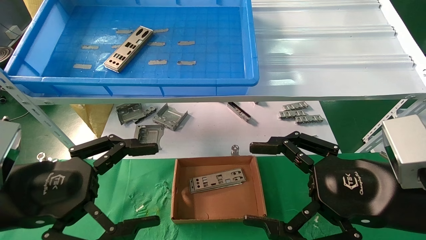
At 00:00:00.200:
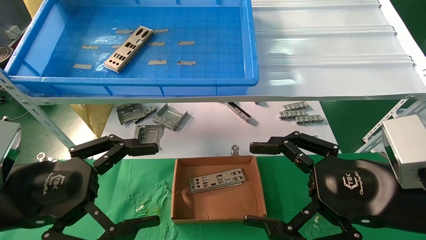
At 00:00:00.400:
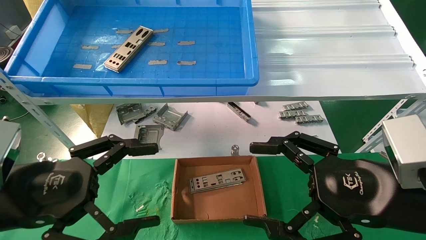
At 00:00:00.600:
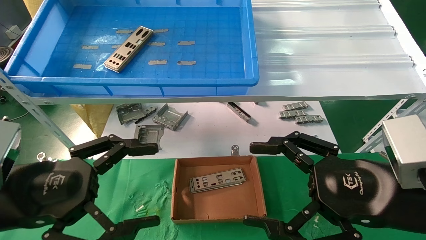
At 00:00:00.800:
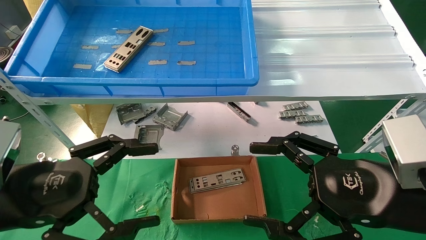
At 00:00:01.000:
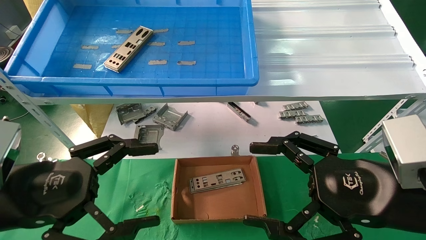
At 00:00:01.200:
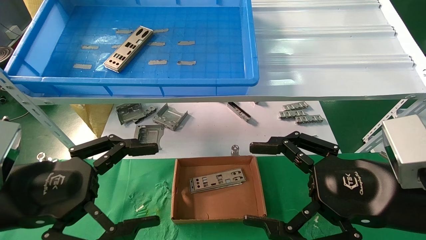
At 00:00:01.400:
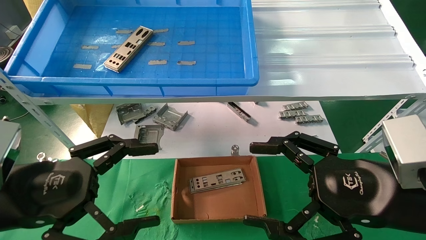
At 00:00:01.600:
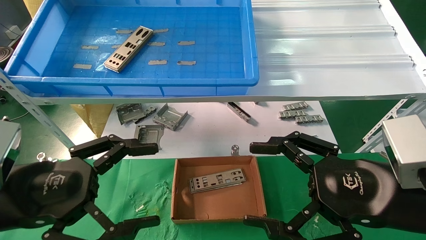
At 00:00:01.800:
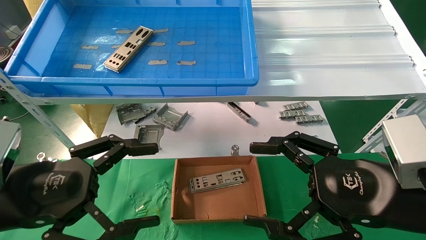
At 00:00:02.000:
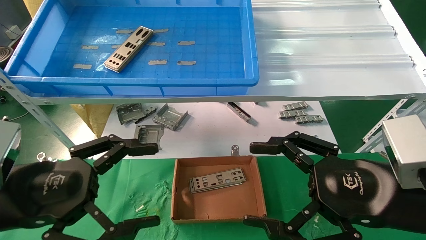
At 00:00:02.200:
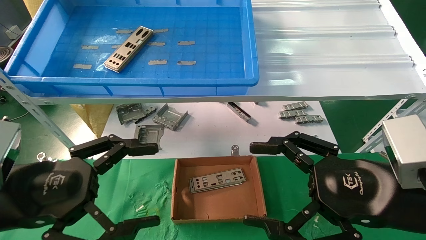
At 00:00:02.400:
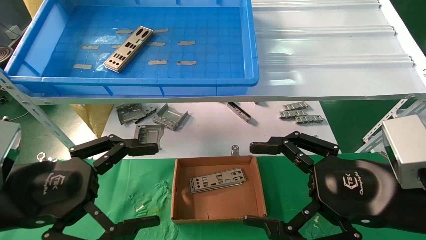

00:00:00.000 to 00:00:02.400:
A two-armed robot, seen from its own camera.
Task of the whole recording: pick up the parts on the tray and put them in the cardboard box.
00:00:00.000 to 00:00:02.400: The two grippers keep their place.
